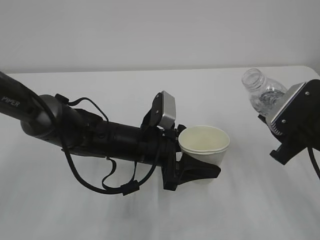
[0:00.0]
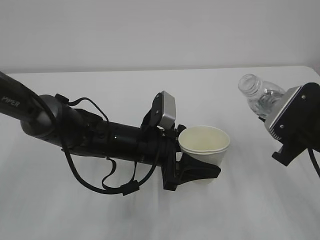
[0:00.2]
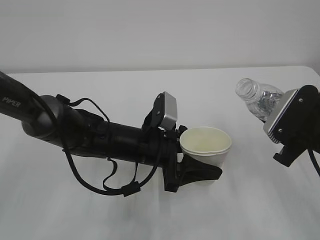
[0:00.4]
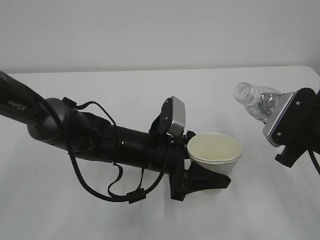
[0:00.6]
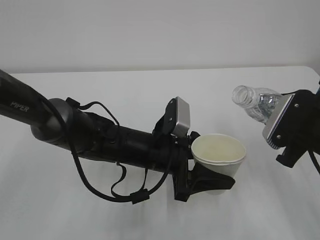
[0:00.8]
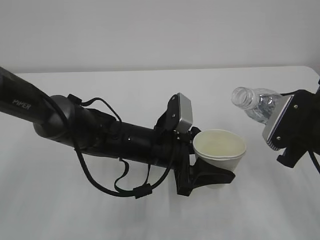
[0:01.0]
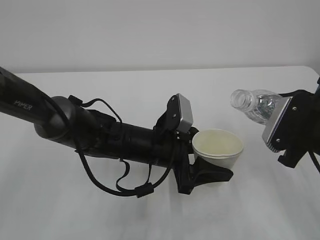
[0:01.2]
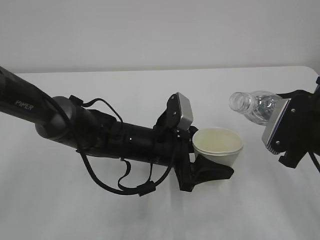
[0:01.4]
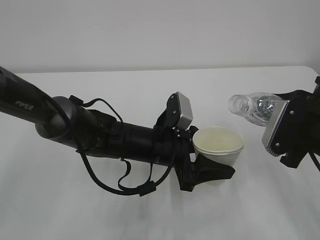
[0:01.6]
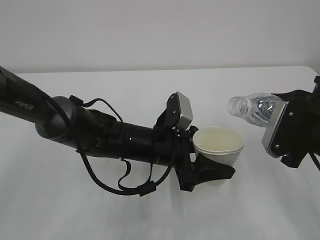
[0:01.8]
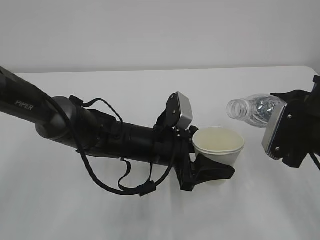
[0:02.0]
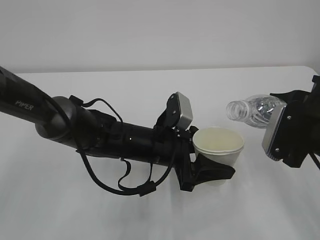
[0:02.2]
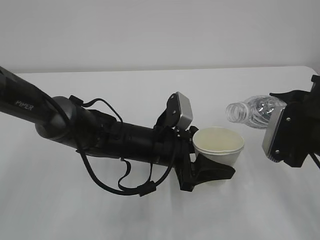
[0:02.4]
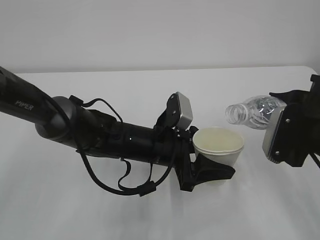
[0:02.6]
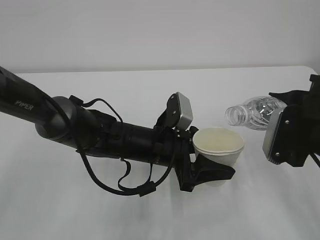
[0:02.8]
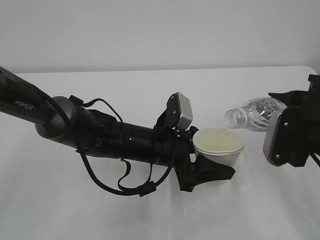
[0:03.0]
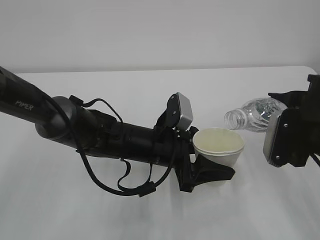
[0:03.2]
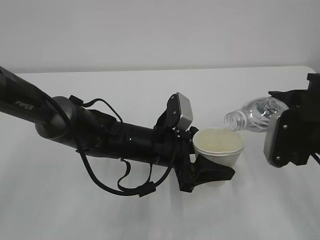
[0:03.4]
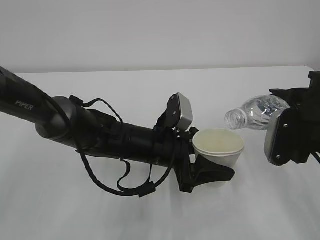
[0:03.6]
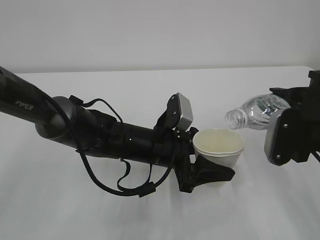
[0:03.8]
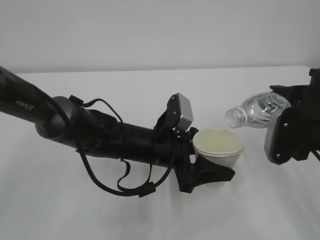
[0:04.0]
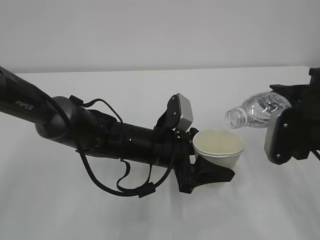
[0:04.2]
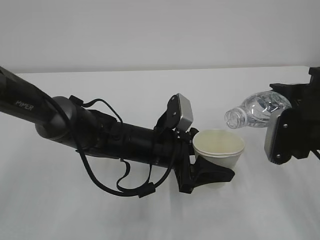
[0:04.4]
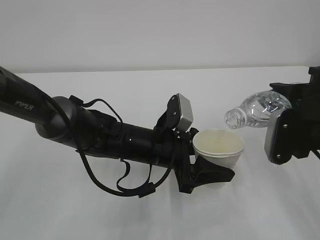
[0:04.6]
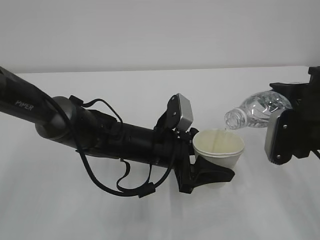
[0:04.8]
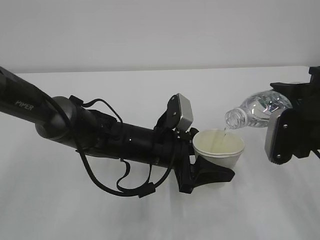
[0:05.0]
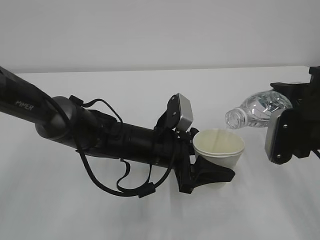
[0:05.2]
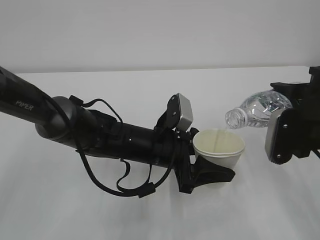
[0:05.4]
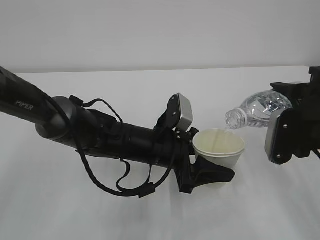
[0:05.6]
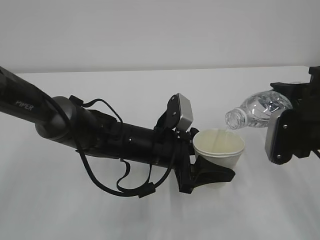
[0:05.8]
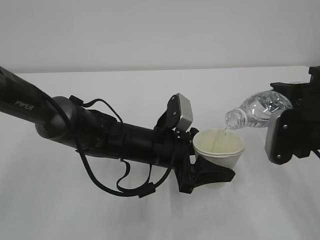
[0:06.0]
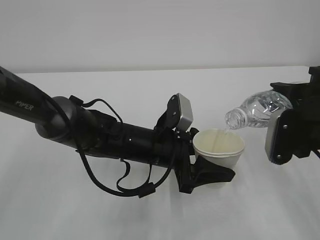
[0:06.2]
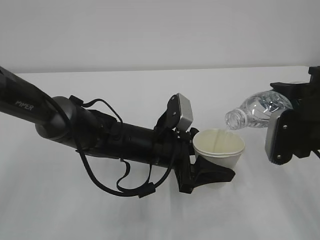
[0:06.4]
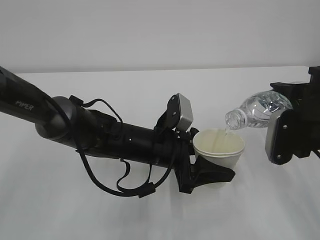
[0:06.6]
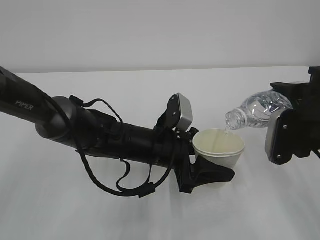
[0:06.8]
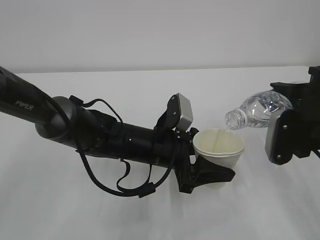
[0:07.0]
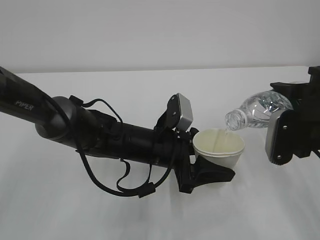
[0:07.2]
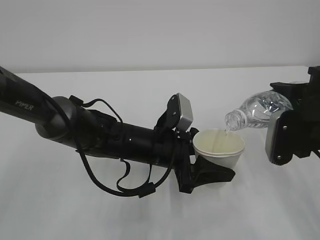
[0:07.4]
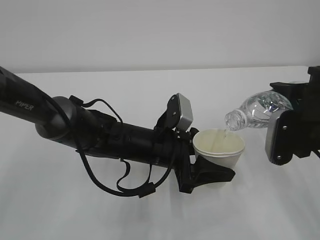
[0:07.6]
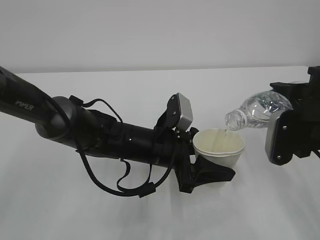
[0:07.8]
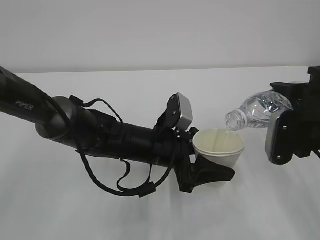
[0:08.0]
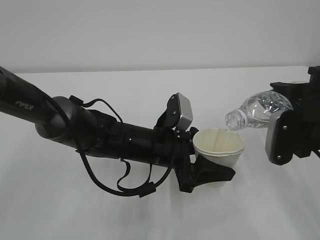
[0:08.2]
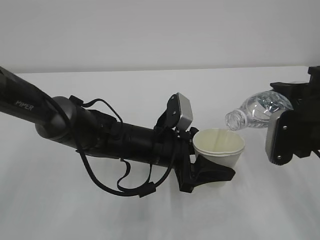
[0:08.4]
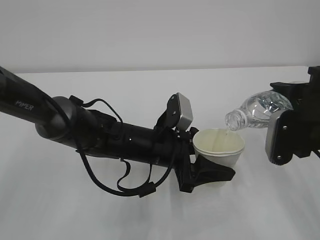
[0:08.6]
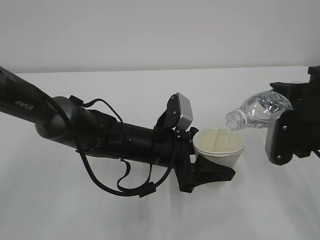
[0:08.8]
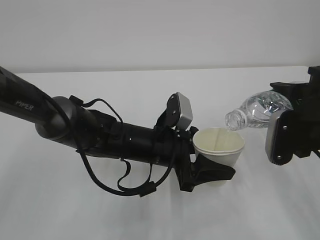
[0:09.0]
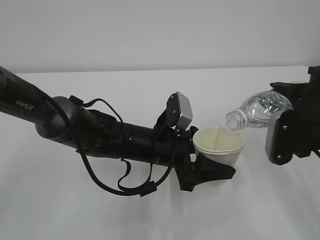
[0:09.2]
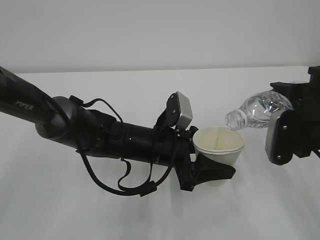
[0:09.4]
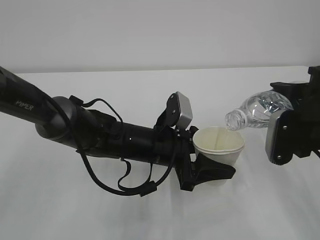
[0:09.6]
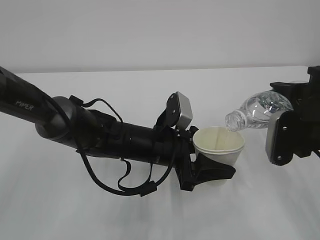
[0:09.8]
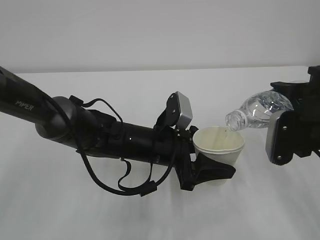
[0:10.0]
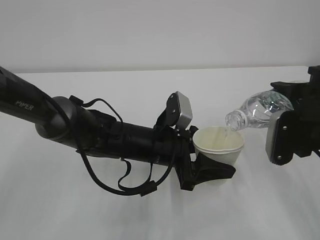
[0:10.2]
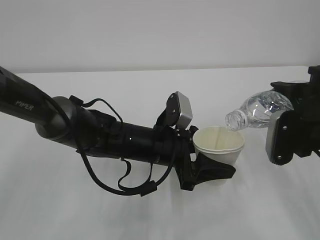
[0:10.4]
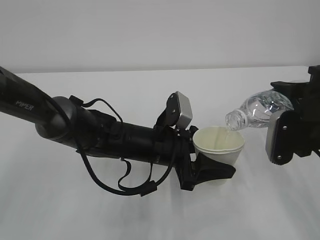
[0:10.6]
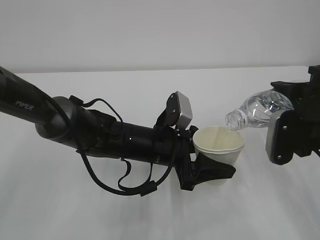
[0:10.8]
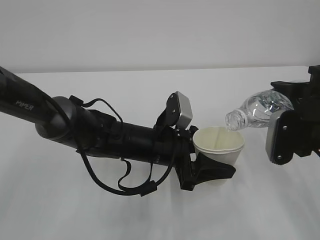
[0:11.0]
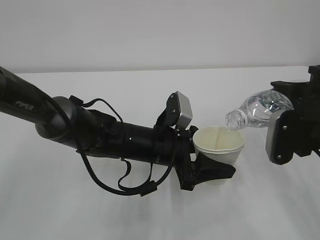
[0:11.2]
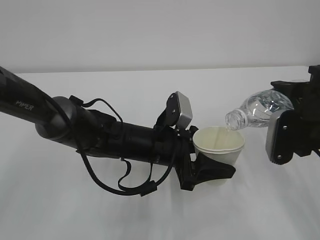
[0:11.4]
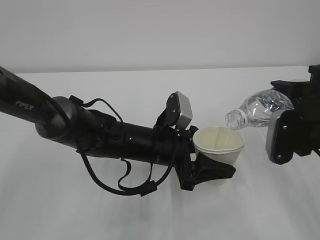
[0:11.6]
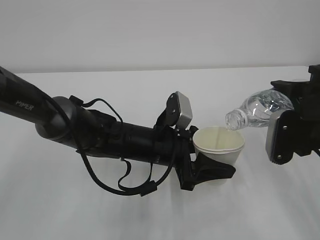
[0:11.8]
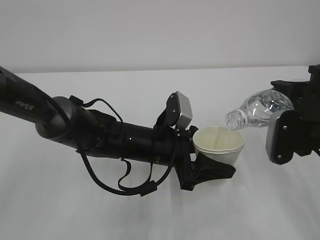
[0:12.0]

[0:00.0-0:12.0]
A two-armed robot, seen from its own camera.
0:01.6 to 0:03.0: The grippers move only a little.
0:03.0 to 0:04.4: The grippers stay close to where they were, moving slightly.
0:04.4 to 0:12.0: Neither gripper changes place.

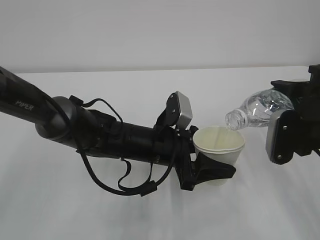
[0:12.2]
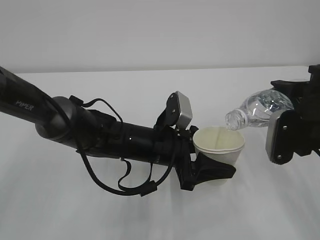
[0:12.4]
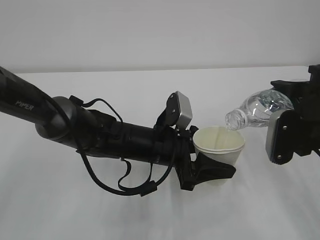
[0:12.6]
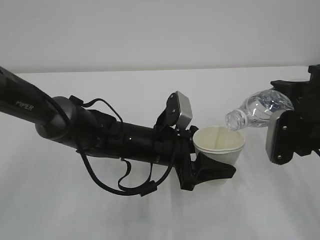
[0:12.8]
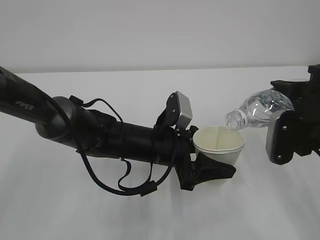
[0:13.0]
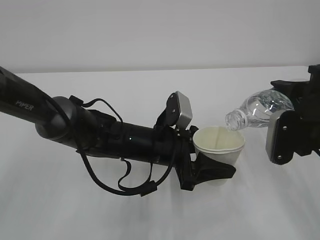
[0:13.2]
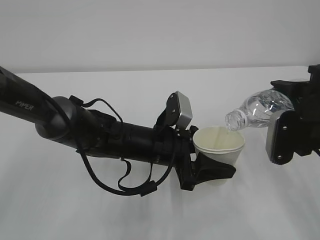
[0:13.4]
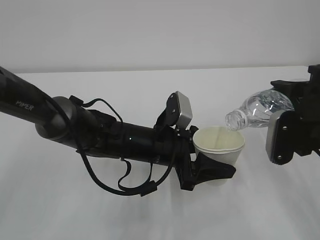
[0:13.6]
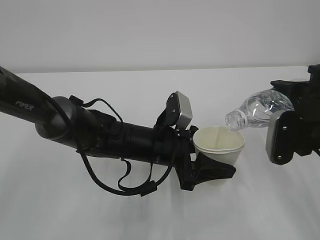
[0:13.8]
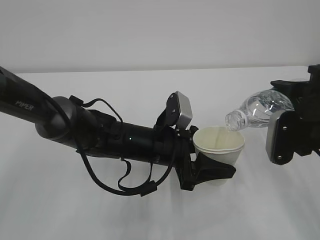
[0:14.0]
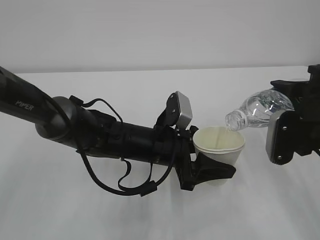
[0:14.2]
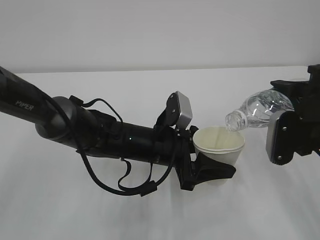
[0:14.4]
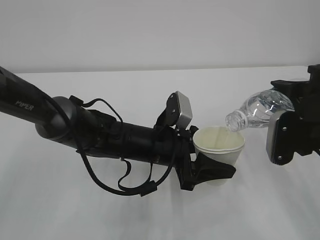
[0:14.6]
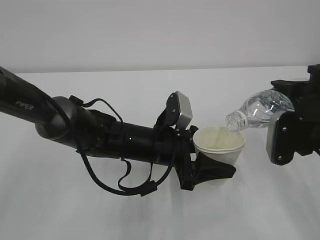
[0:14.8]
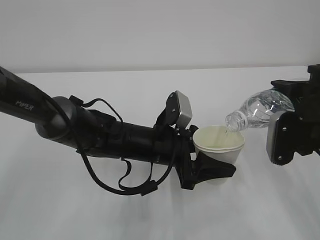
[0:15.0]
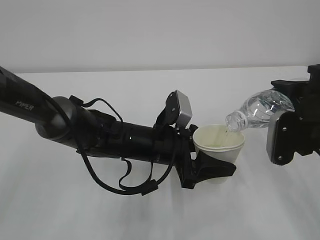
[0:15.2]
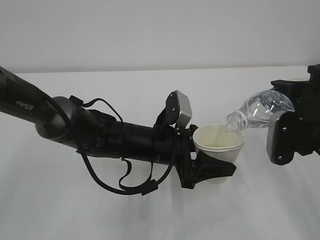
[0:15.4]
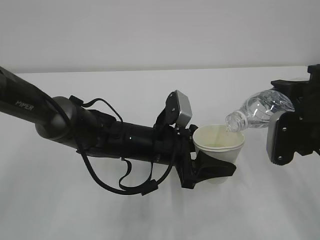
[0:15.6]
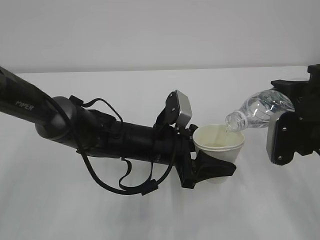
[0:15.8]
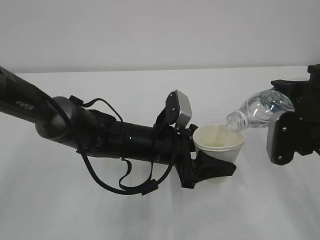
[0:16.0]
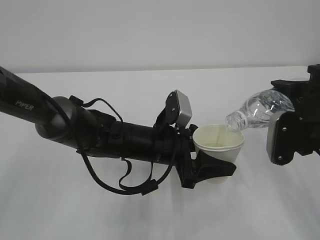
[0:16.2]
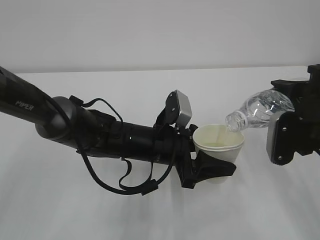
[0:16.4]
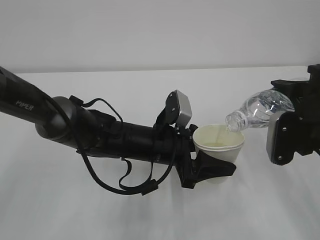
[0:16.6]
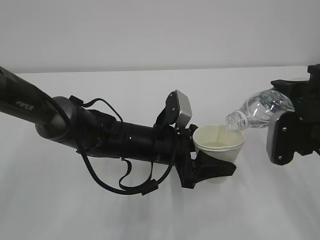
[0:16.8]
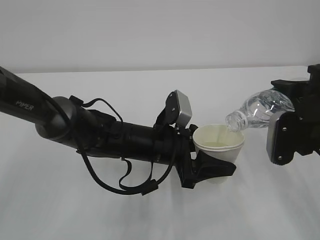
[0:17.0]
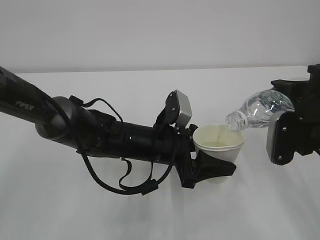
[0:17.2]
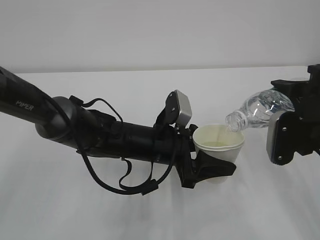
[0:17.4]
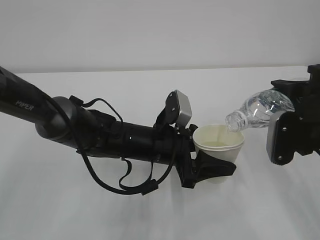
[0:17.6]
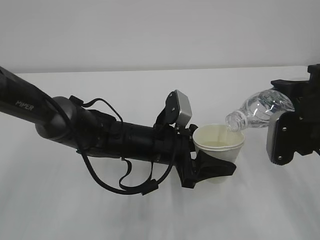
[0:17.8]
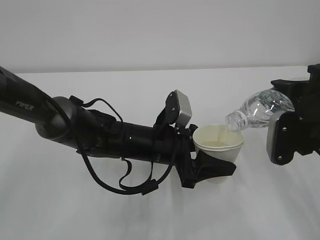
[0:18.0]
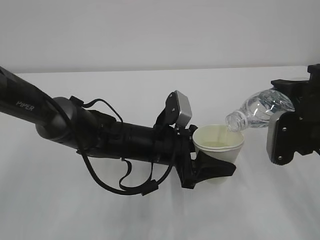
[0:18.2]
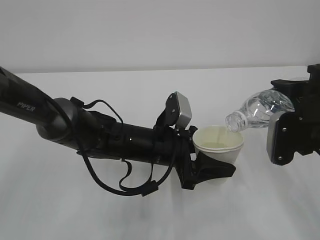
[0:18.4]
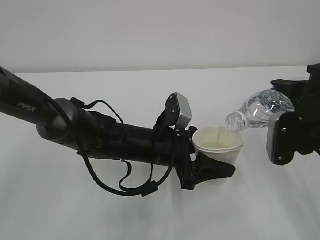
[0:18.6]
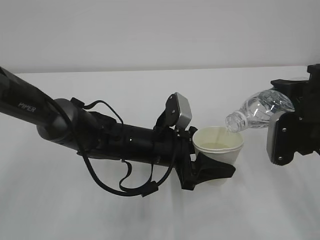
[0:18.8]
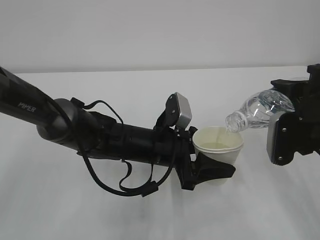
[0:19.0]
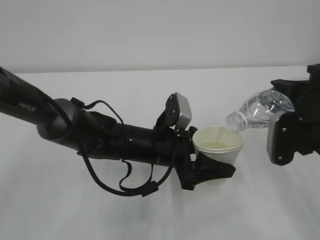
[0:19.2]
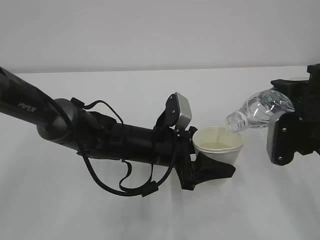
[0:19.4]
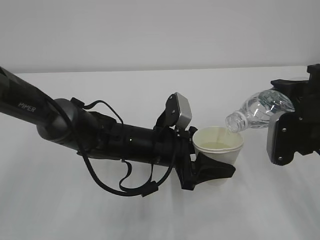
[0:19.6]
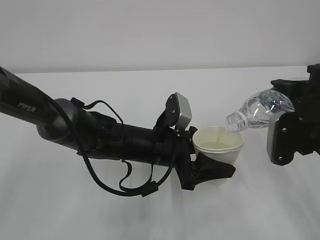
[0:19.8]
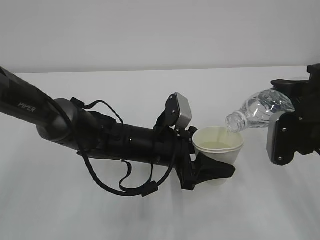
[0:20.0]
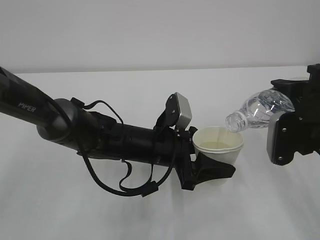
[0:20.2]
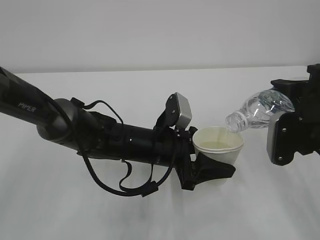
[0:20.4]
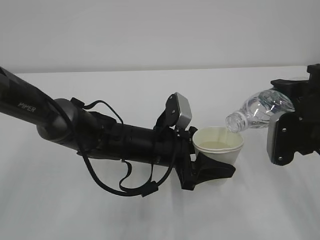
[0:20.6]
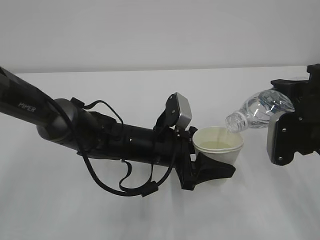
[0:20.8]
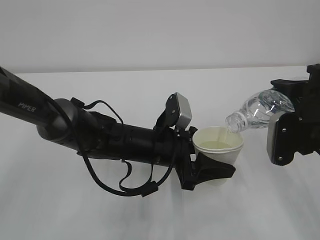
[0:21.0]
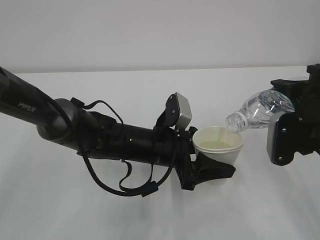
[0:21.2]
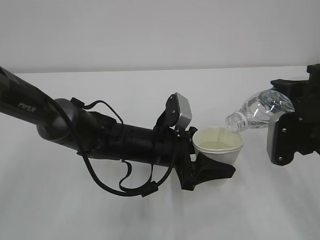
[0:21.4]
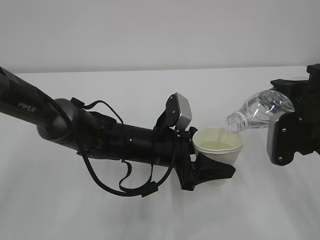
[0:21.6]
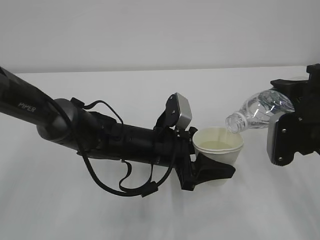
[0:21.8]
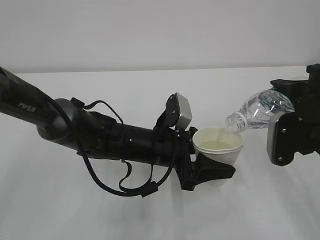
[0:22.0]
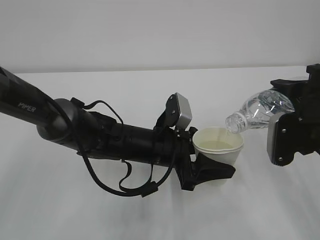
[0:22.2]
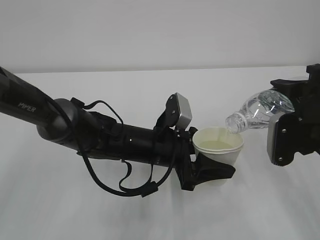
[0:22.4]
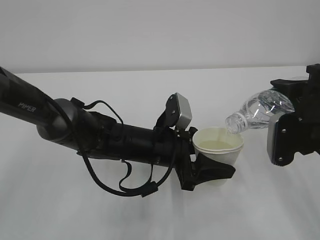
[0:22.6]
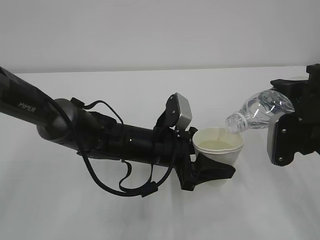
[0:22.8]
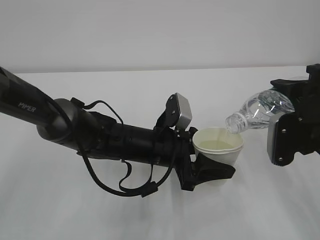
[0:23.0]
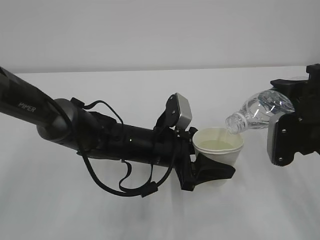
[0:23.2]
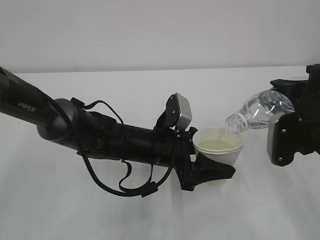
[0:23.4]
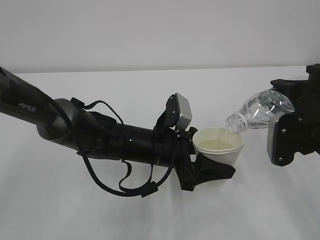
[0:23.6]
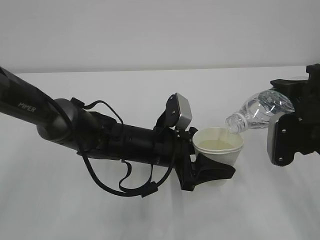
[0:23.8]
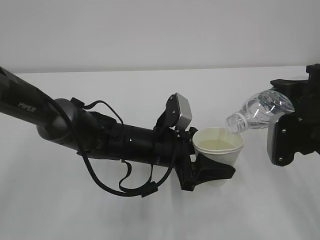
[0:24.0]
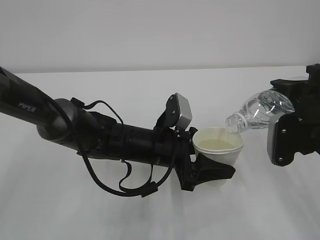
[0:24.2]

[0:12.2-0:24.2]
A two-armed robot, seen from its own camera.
0:12.2 to 0:24.2: Neither gripper changes place.
